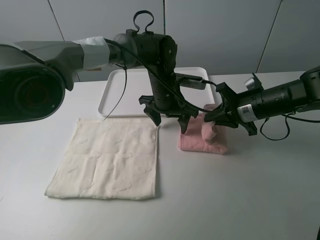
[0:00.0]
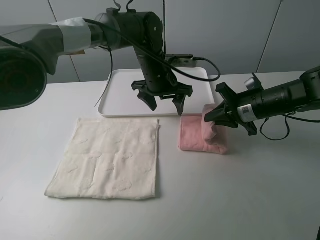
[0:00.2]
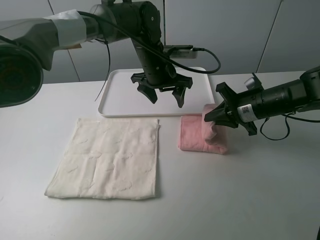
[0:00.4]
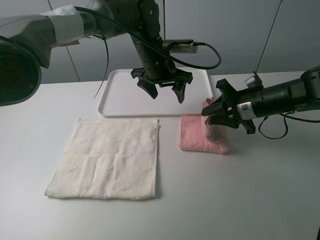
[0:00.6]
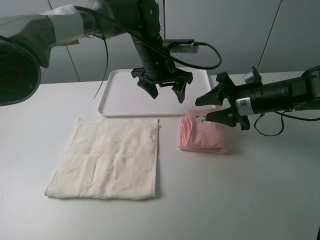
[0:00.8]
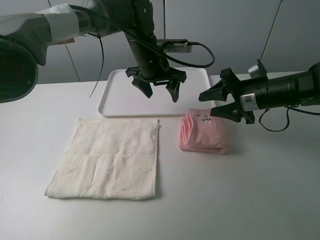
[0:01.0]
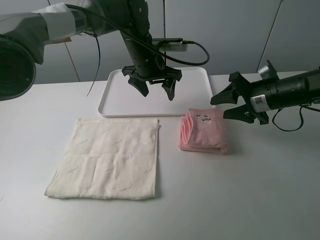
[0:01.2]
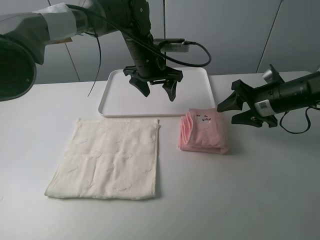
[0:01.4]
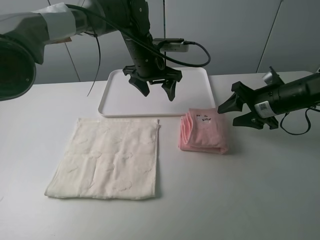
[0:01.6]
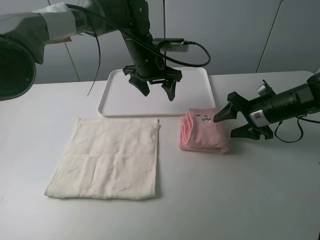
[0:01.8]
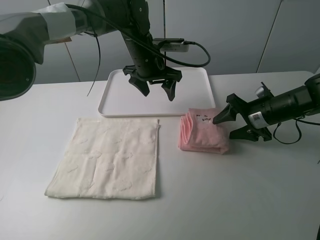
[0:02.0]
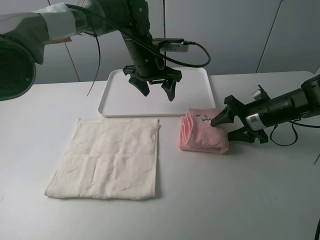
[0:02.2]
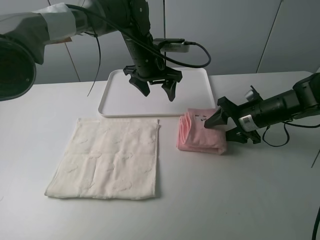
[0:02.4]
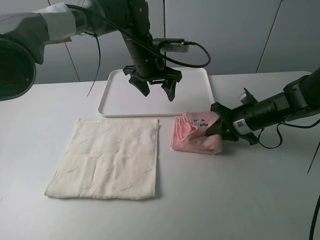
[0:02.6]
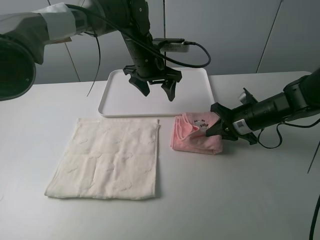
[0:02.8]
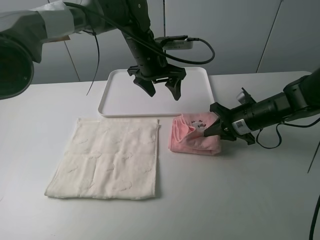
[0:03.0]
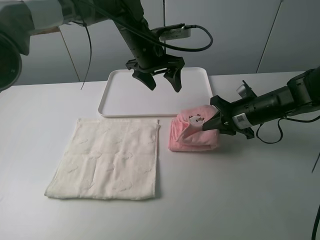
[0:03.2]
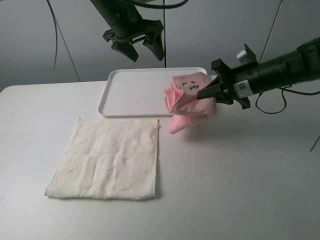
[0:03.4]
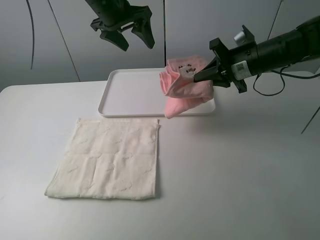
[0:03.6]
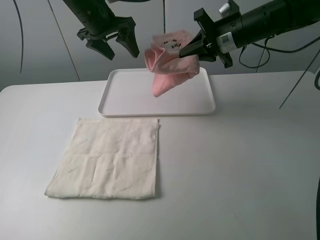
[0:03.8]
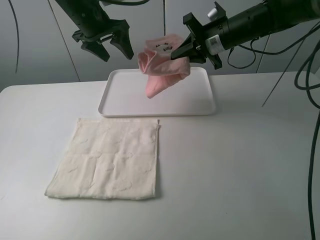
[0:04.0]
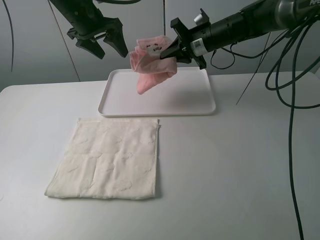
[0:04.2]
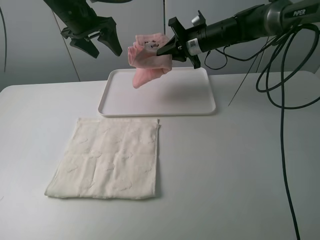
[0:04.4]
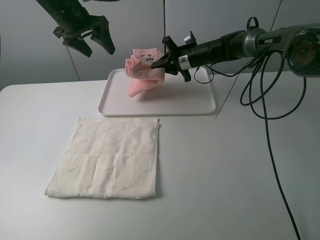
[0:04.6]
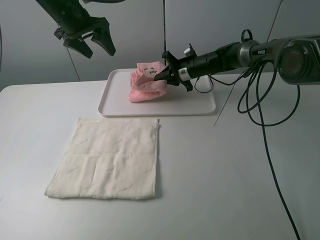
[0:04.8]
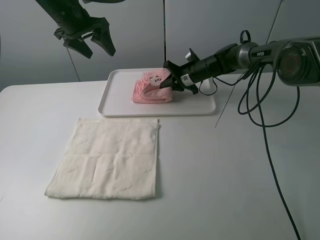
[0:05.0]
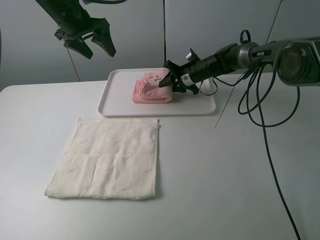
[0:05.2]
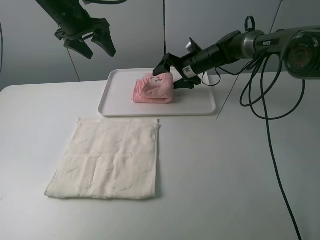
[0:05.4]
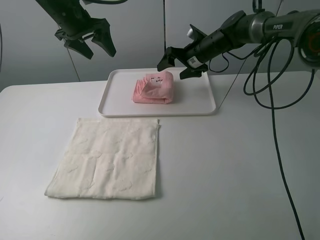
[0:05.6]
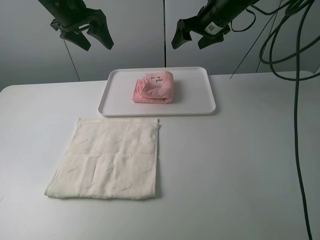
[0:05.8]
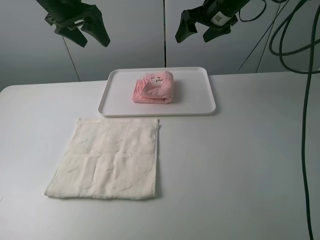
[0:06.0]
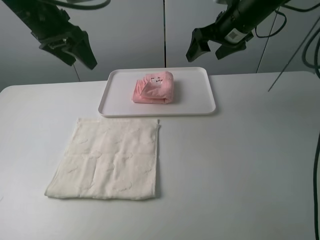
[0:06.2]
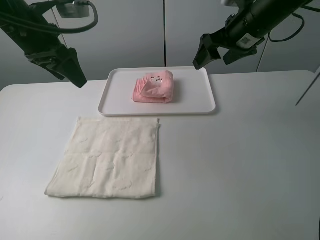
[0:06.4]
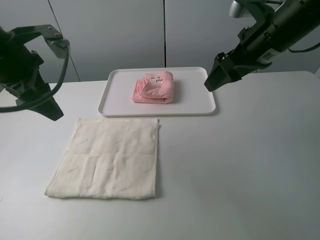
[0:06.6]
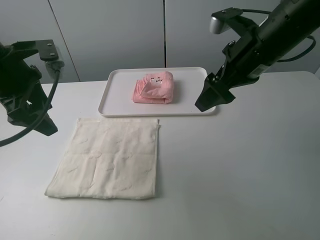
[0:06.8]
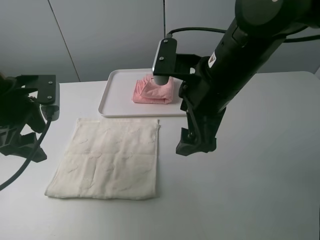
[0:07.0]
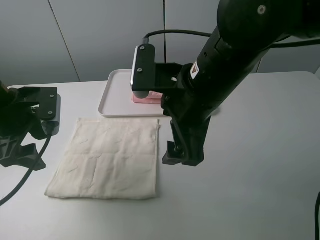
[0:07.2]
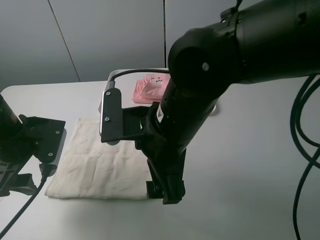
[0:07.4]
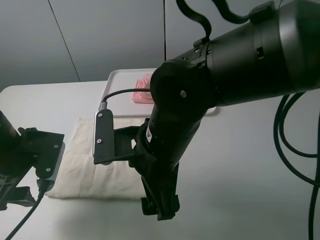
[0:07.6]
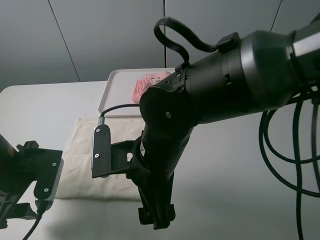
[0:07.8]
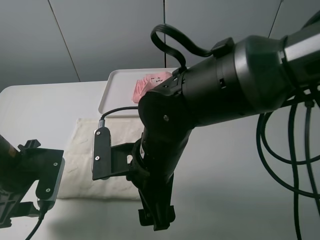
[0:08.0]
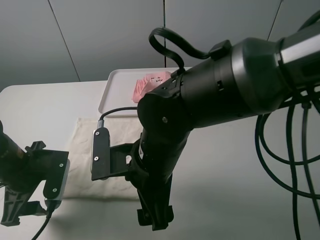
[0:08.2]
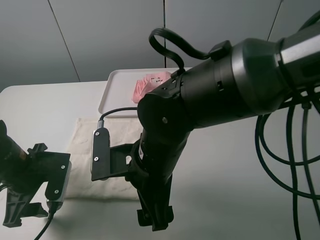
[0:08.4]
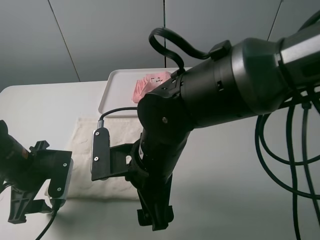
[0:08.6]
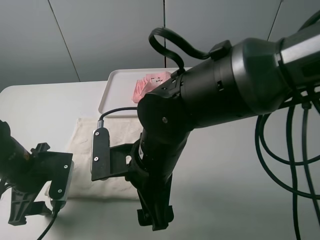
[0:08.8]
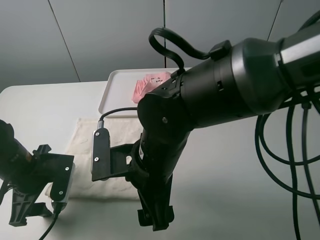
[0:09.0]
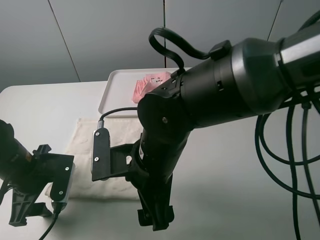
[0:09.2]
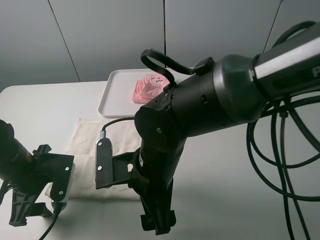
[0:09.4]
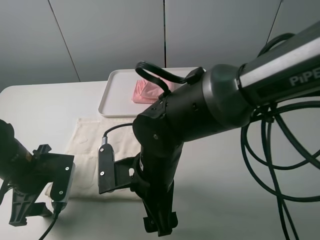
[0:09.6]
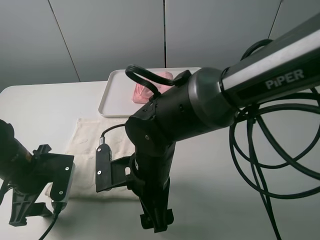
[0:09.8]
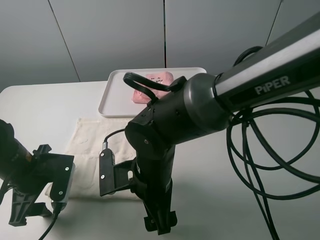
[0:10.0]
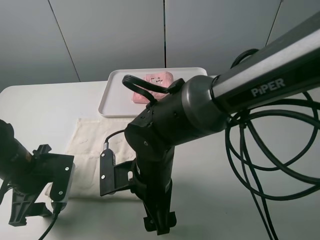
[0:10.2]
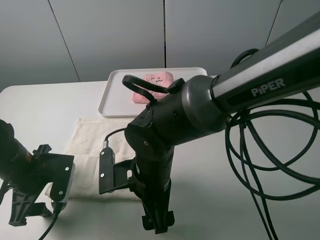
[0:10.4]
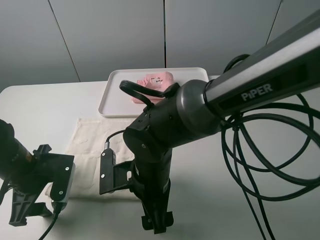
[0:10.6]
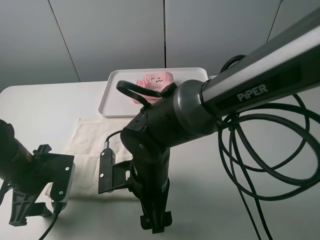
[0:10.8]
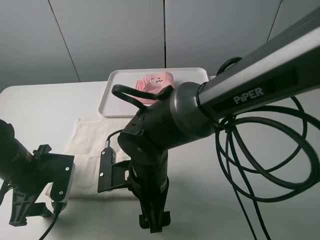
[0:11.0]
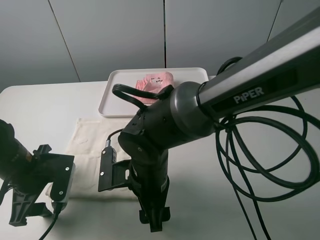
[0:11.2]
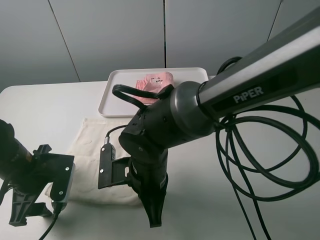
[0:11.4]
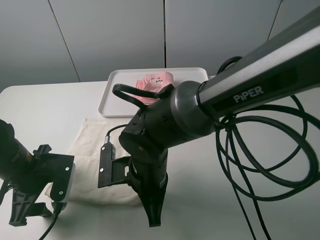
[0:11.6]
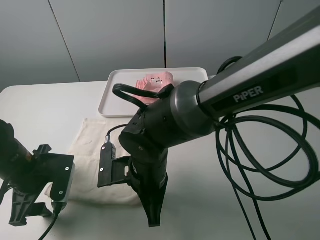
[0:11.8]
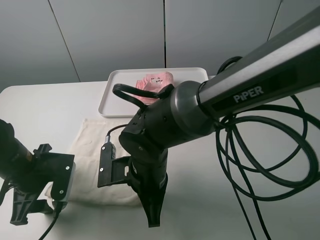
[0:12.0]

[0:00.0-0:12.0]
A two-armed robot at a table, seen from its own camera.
Task of the whole recording: fold one of the towels by two grippers and place it on the tray,then fold another towel by two grippers and place it on the folded towel.
Step, 1.2 to 2.8 s: Grasp the pink towel with the right gripper.
Step, 3.0 to 5.6 s: Move the pink towel to the plate with the right gripper.
0.0 to 1.6 s: The right gripper opens up; the left gripper is displaced upward by roughly 5 cm.
1.6 to 3.0 s: The right gripper moves about 5 cm, and closes its fingers.
3.0 to 4.4 s: The left gripper shifts approximately 20 cm to the left and upward. Meanwhile the right gripper goes some 20 cm forward, to the left and upward.
4.4 to 6.0 s: The right gripper goes approximately 10 cm upward, and opens up.
6.0 to 7.6 s: The left gripper heads backward and downward, covering roughly 30 cm, while the right gripper shifts some 35 cm backward and to the left.
7.6 to 9.0 s: The left gripper heads downward, covering approximately 5 cm.
9.0 to 10.4 s: The right gripper moves downward, approximately 5 cm.
10.4 to 12.0 s: The right gripper closes.

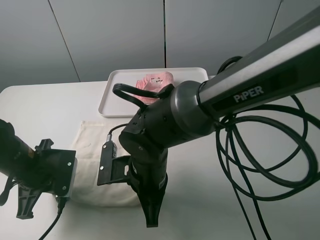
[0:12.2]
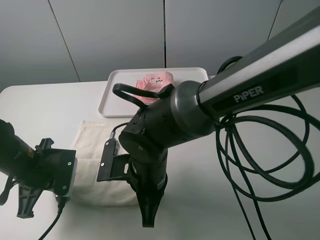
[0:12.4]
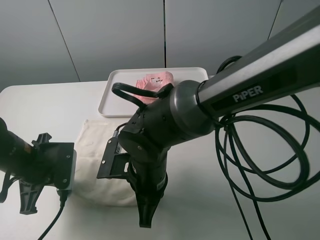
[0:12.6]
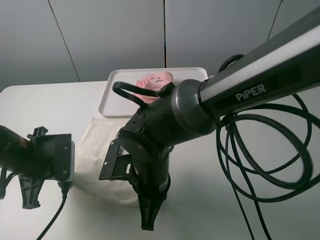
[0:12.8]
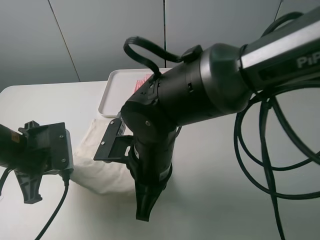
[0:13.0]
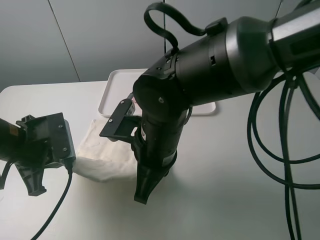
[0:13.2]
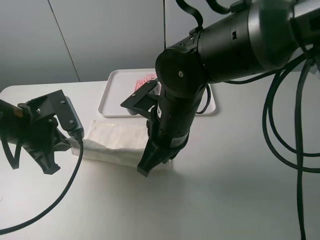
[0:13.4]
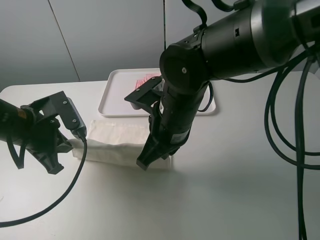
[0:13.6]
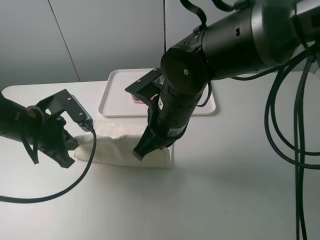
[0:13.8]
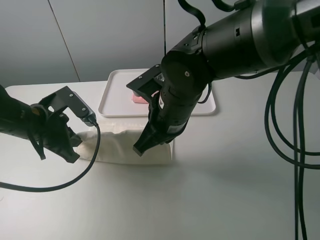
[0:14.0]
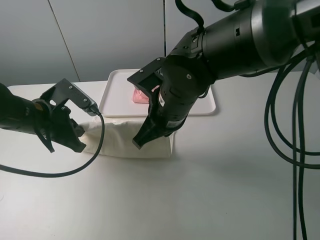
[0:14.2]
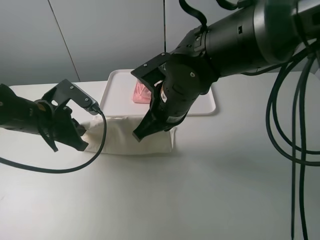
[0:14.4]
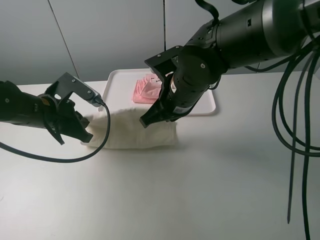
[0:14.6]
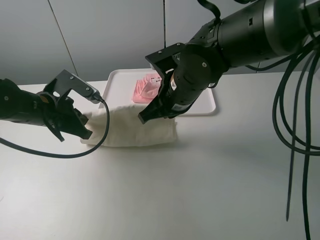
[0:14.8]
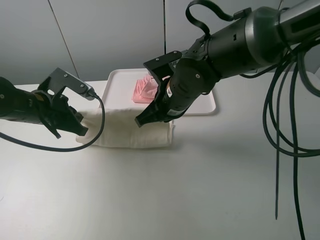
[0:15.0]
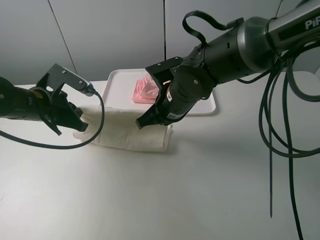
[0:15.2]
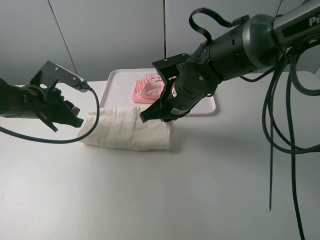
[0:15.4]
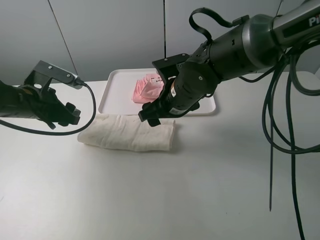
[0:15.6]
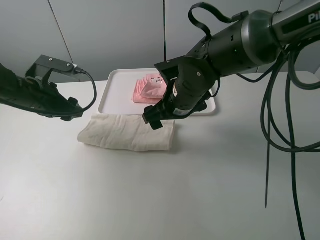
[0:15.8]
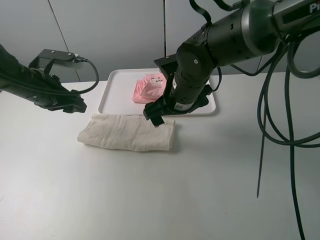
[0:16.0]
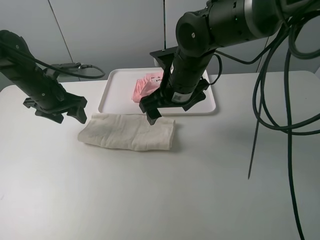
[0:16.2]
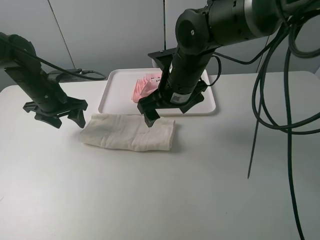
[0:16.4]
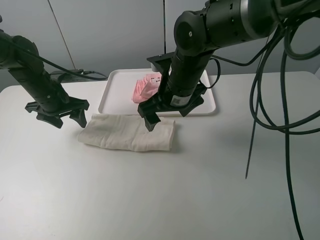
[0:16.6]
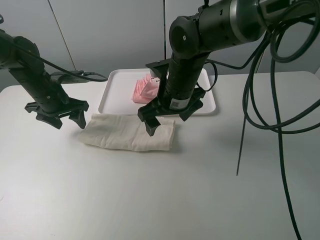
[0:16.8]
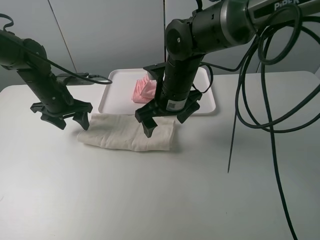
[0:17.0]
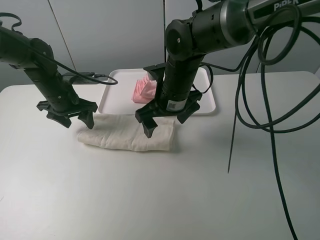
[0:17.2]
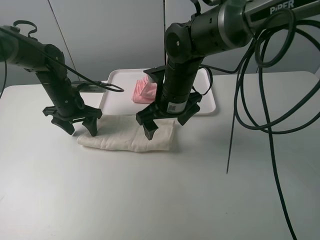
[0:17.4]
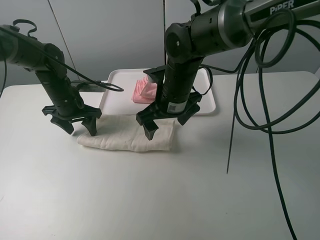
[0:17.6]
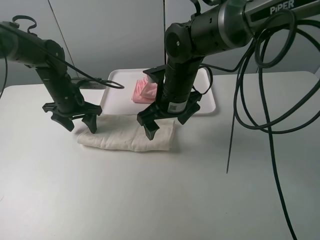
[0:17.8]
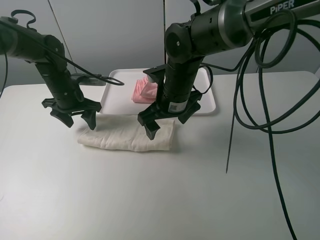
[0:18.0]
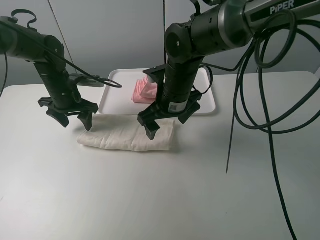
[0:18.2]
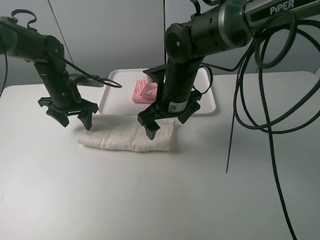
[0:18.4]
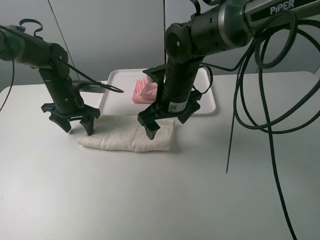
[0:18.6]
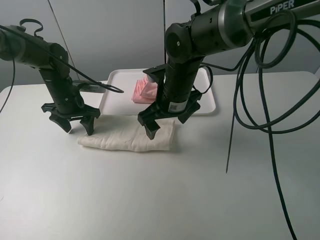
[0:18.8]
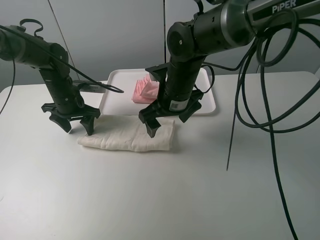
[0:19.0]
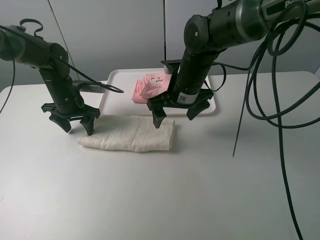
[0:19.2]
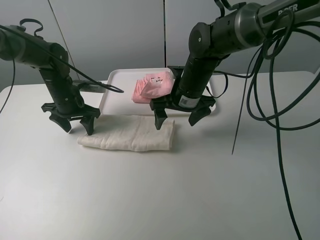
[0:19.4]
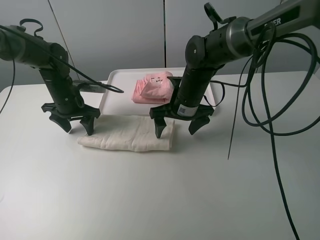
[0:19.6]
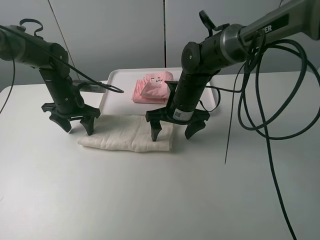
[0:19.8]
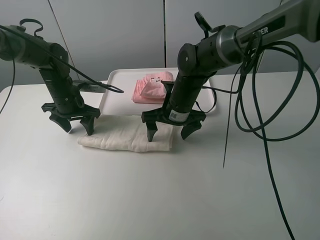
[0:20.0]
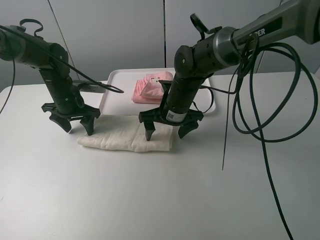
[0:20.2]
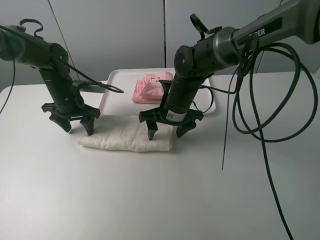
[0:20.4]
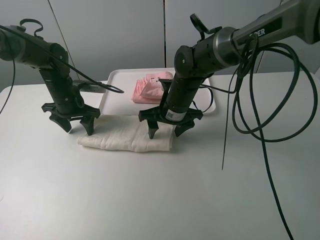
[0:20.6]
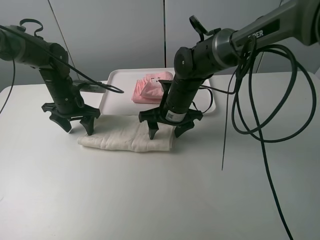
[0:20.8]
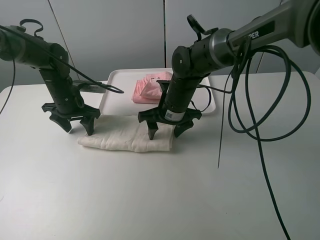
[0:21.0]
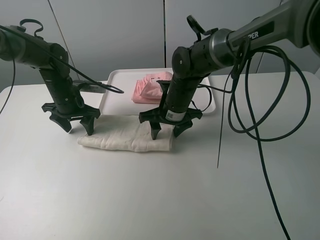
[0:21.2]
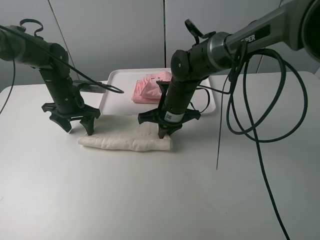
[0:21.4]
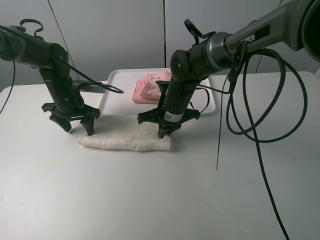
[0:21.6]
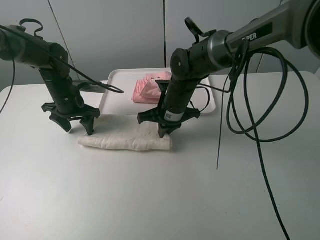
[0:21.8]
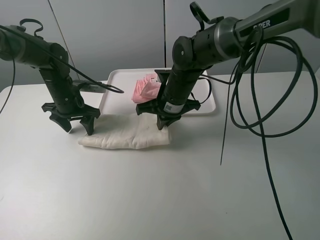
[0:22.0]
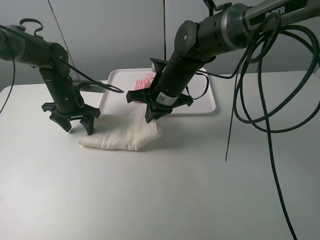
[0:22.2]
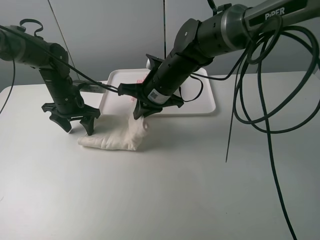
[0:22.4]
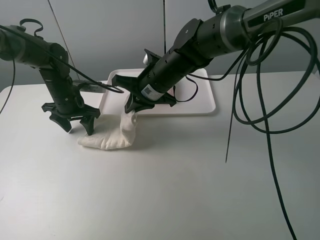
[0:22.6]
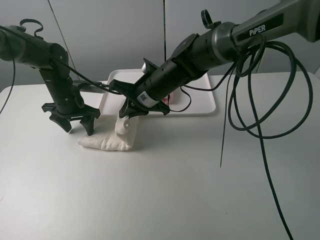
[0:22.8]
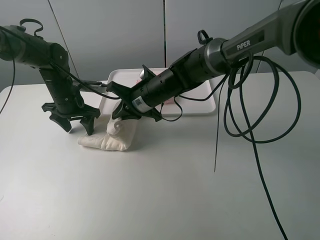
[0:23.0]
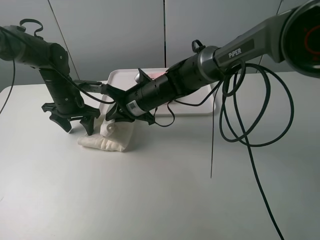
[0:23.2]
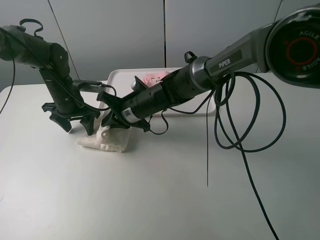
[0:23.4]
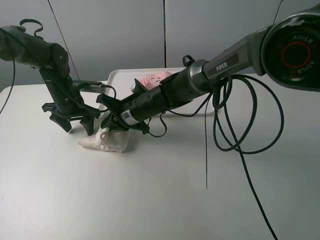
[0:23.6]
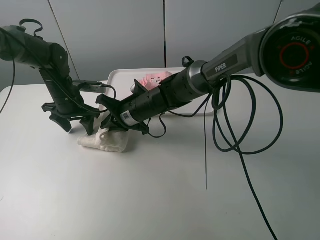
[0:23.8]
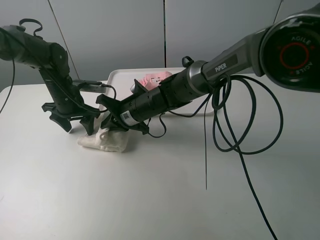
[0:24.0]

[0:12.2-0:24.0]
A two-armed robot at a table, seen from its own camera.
Task of the whole recording: fold one of the towels by two grippers and place it on the tray,then fold another towel by two grippers and place it on the folded towel.
Step, 12.6 to 15.6 s: Fold the white towel upwards with the left gripper.
Step, 15.8 to 17.6 s: Press the white towel with the left gripper.
Step, 17.8 to 21.4 s: Grasp the white towel with the right gripper.
12.2 to 13.6 s: The right gripper is displaced upward and forward by approximately 10 cm. The left gripper goes some 5 cm upward.
13.6 to 15.2 s: The two grippers go roughly 5 cm forward.
15.2 to 16.6 s: The right gripper opens. Meanwhile the left gripper shifts roughly 10 cm forward, and opens its fingers.
18.2 to 19.6 s: The right gripper ends up about 5 cm from where it was.
19.6 to 21.0 s: The grippers make only small movements.
21.0 to 22.6 s: The right gripper is displaced upward by approximately 5 cm, and closes its fingers.
22.6 to 24.0 s: The right gripper is displaced downward by approximately 5 cm.
